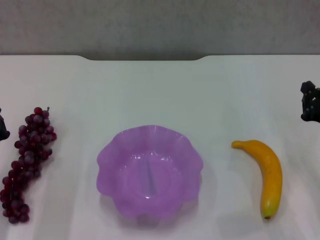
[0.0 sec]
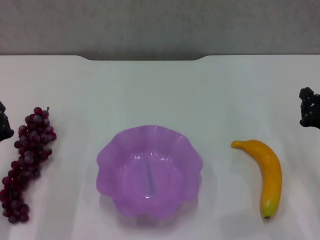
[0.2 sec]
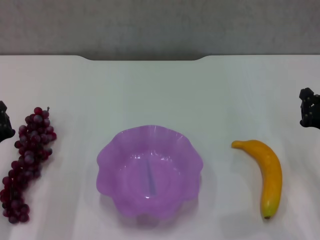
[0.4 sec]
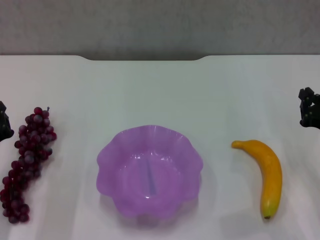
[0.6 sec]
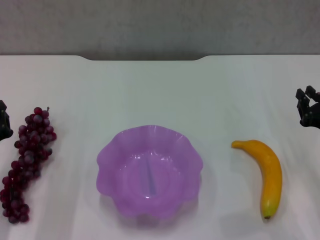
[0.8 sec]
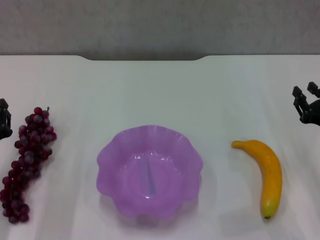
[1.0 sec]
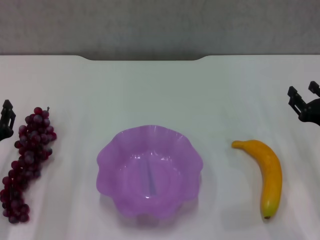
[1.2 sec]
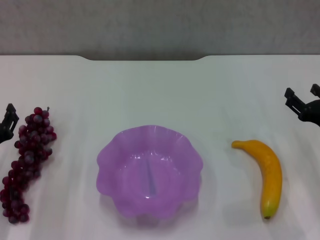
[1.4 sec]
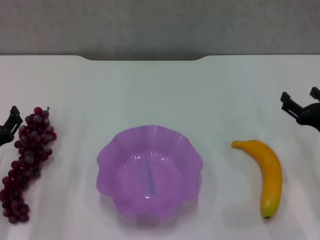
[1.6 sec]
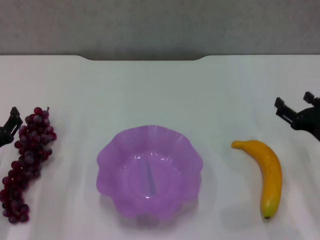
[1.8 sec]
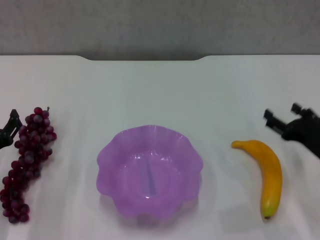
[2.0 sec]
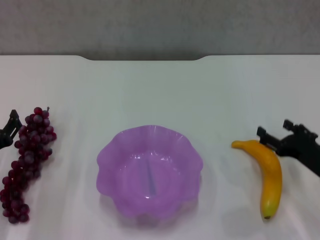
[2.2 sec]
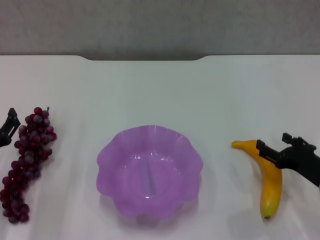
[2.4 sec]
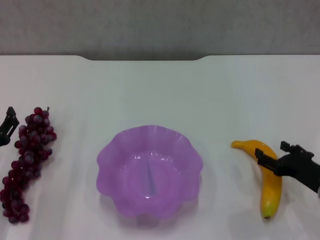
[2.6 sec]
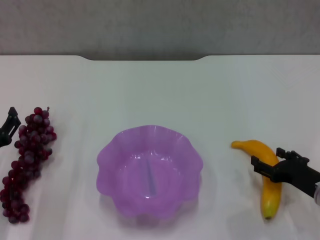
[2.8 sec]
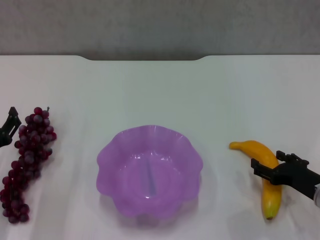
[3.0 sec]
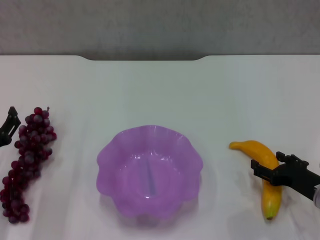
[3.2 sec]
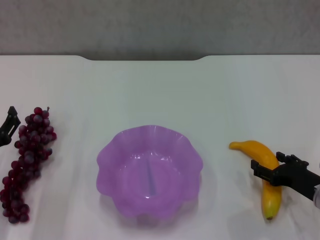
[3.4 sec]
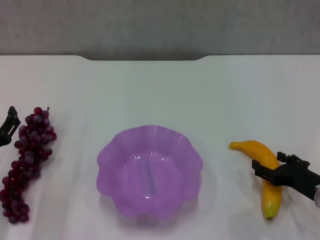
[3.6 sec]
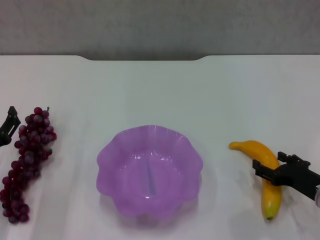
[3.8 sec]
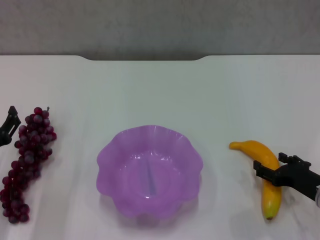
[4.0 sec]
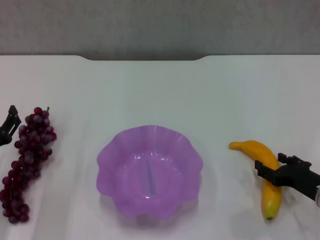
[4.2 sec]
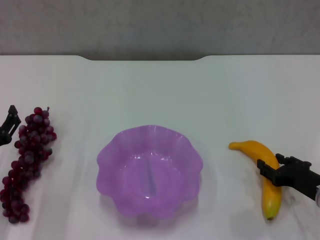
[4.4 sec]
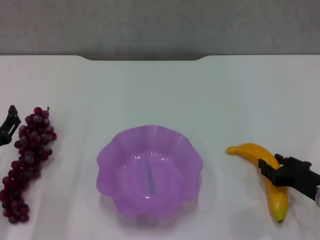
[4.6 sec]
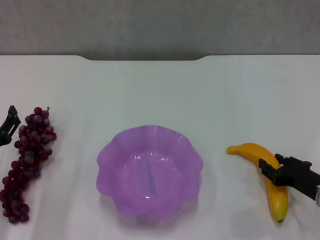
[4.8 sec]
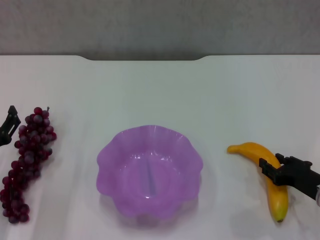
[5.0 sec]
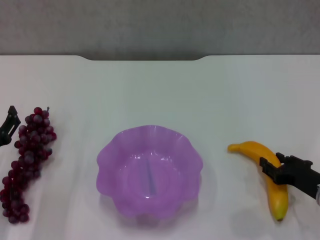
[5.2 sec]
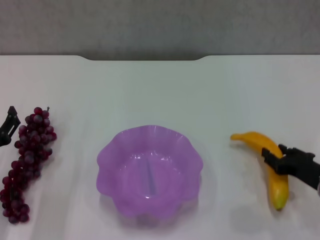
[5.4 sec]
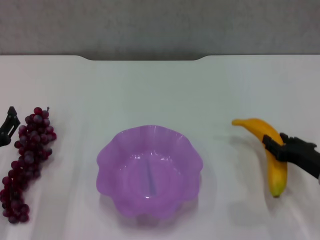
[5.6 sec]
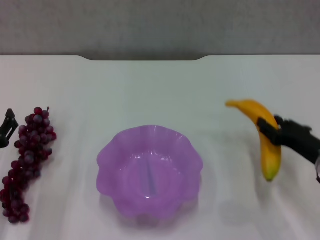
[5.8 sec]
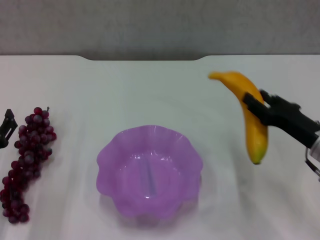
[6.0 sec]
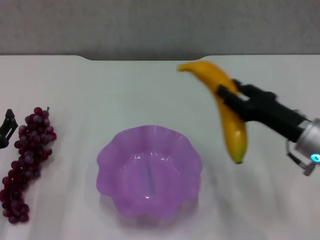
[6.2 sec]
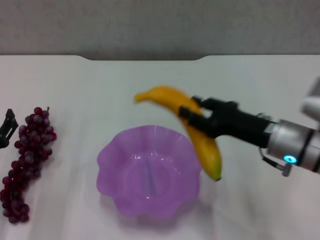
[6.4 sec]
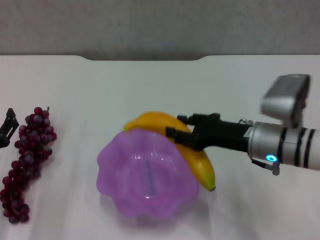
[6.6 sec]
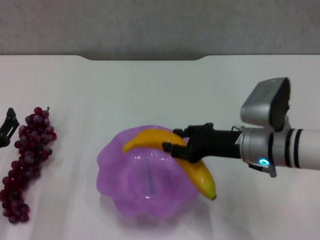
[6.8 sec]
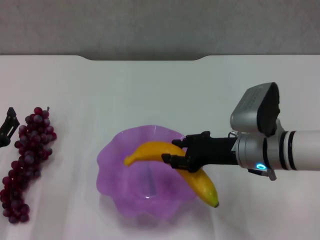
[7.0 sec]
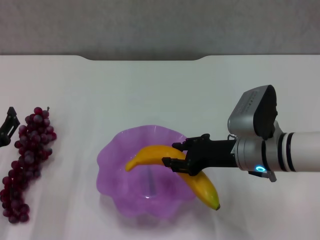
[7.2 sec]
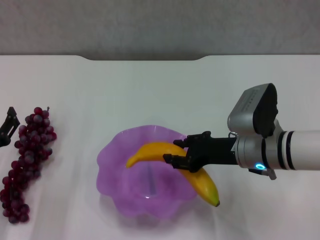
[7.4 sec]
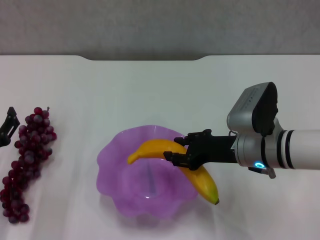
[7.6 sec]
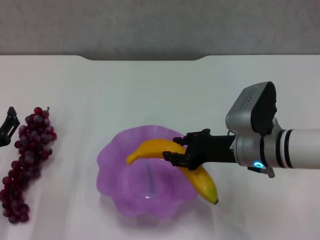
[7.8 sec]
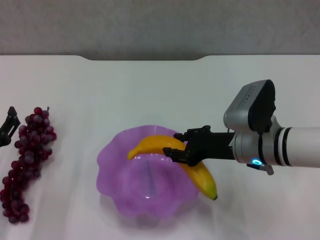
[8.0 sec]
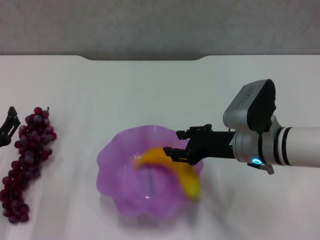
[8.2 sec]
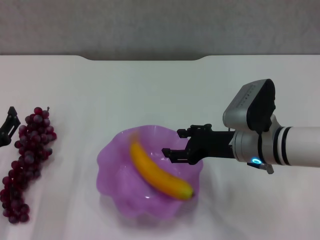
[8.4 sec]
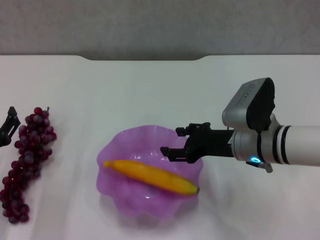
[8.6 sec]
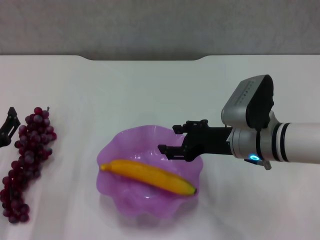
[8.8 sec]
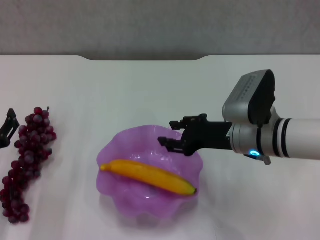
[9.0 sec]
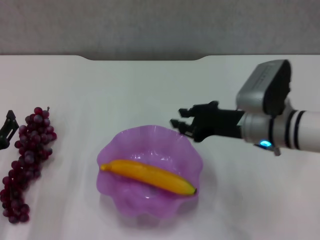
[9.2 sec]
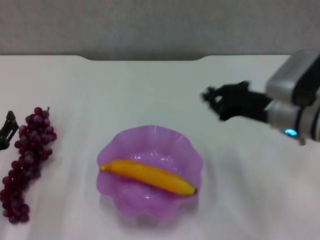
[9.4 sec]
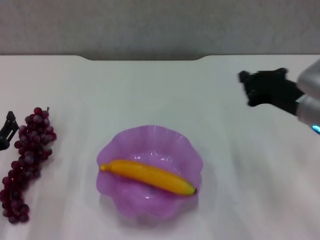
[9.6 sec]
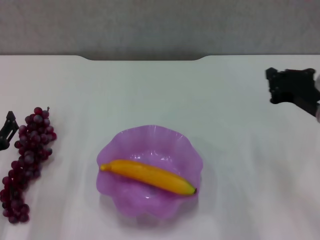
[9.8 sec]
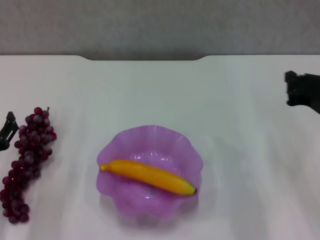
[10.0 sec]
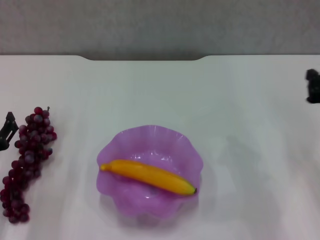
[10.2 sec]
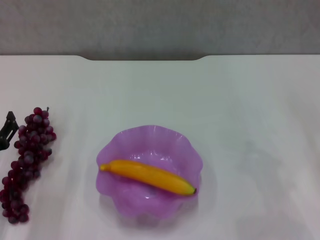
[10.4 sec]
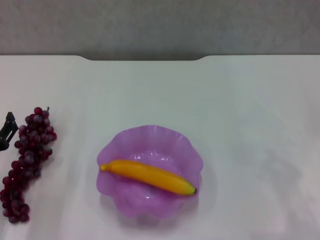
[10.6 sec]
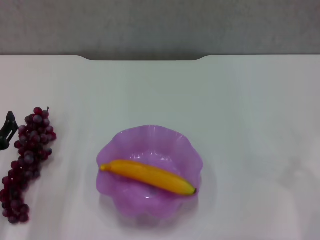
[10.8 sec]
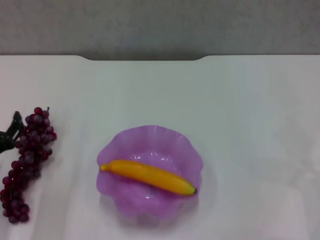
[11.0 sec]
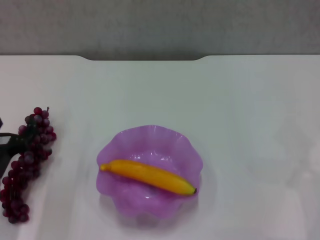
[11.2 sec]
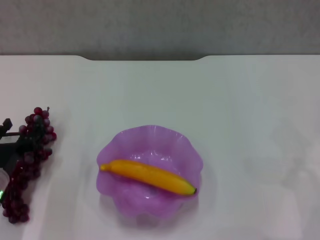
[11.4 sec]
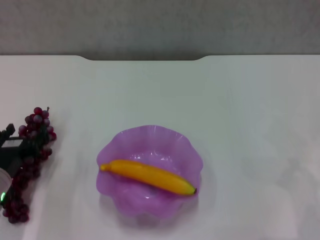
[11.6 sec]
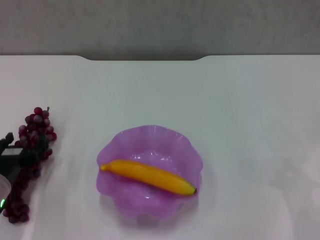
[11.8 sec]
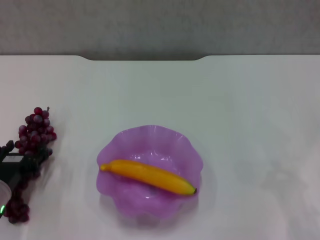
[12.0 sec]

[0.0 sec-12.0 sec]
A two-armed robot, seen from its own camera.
Step, 0.0 sec to 4.6 sec: Grasp the banana with right gripper.
Step, 4.8 sec to 8.4 sec: Place the banana in the purple plate with right gripper.
0.0 sec to 1.6 sec: The right gripper opens its fingers.
1.6 sec to 3.0 sec: The right gripper travels downward by some 5 cm.
3.0 sec to 4.4 sec: Both grippers stay put.
4.4 sec to 6.0 sec: The right gripper is displaced upward by some 5 cm, and closes its fingers.
6.0 sec to 7.6 sec: The right gripper is displaced to the left by about 10 cm.
7.6 sec to 9.0 sec: The grippers stay close to where they were, moving slightly.
9.0 sec to 10.4 sec: The right gripper shifts approximately 20 cm to the right, and closes its fingers.

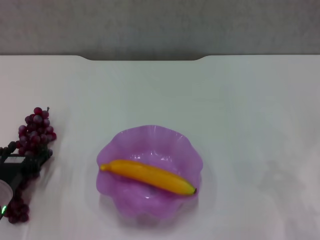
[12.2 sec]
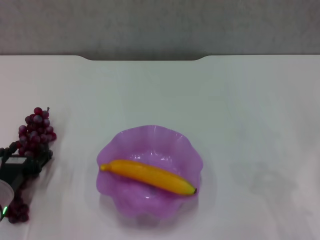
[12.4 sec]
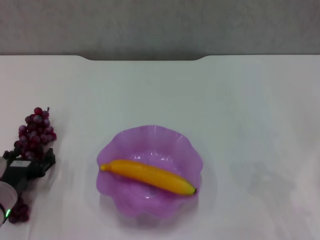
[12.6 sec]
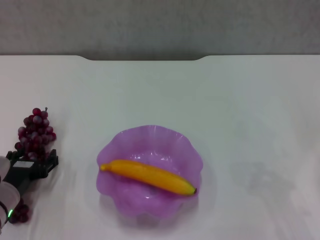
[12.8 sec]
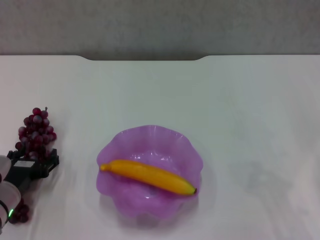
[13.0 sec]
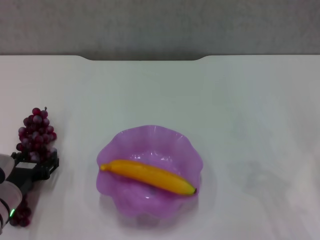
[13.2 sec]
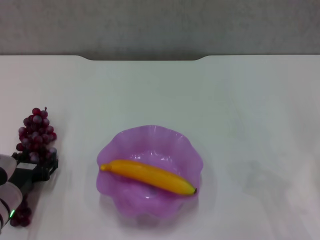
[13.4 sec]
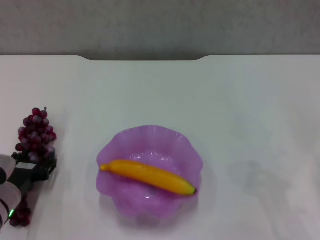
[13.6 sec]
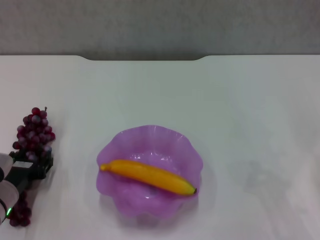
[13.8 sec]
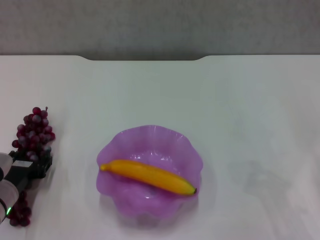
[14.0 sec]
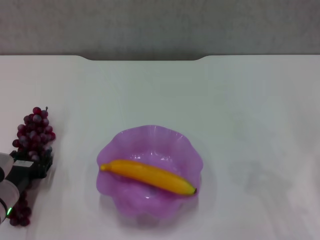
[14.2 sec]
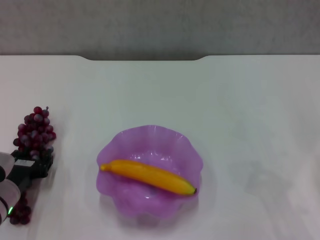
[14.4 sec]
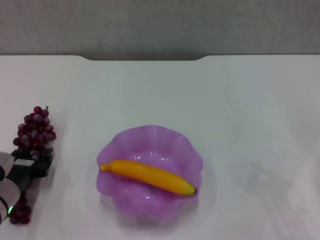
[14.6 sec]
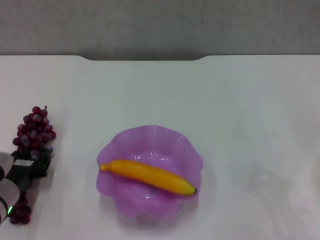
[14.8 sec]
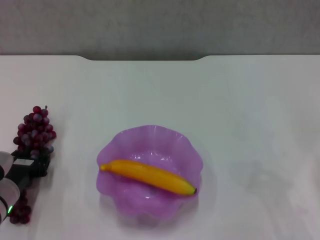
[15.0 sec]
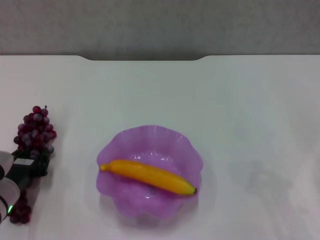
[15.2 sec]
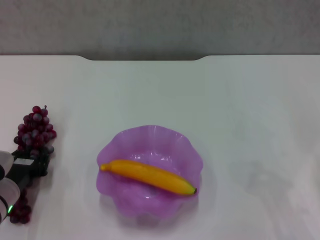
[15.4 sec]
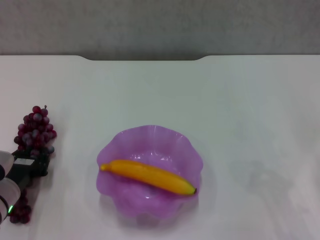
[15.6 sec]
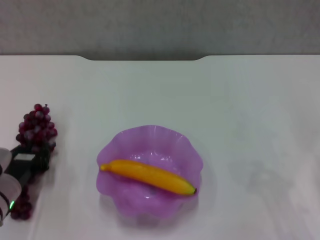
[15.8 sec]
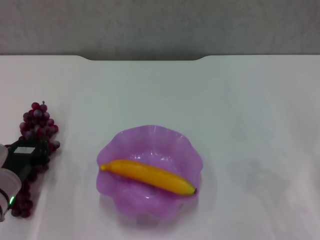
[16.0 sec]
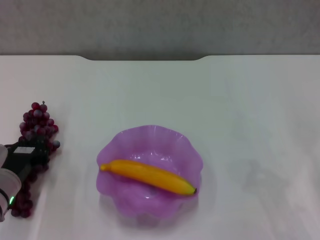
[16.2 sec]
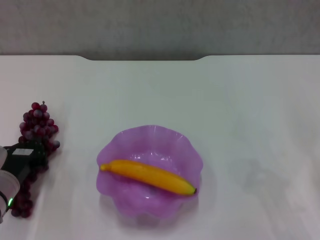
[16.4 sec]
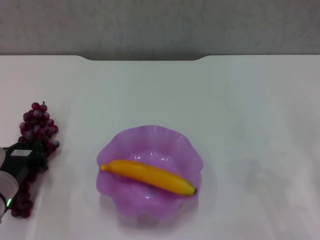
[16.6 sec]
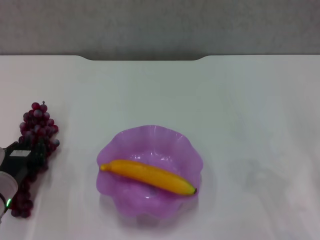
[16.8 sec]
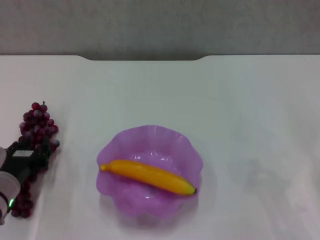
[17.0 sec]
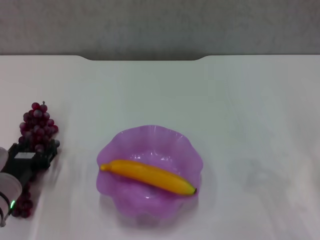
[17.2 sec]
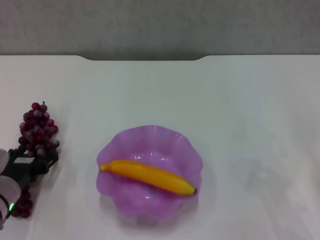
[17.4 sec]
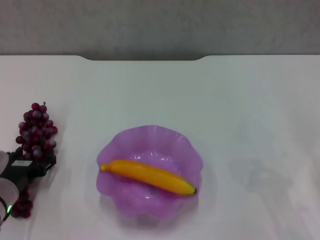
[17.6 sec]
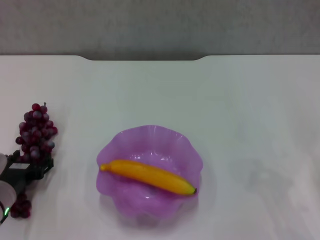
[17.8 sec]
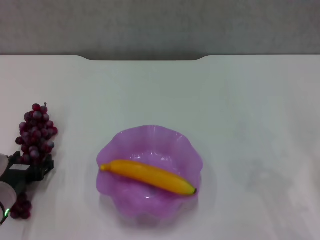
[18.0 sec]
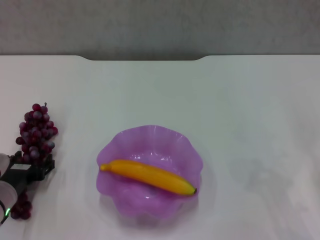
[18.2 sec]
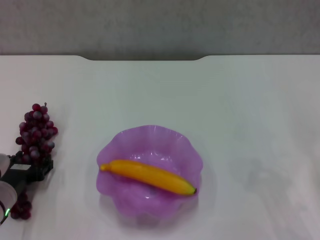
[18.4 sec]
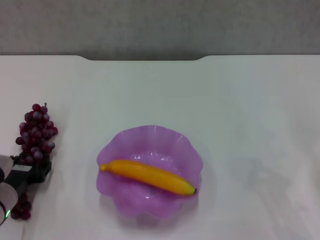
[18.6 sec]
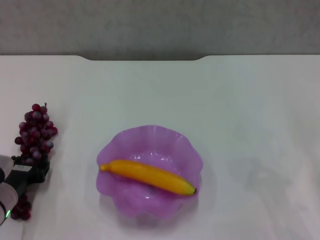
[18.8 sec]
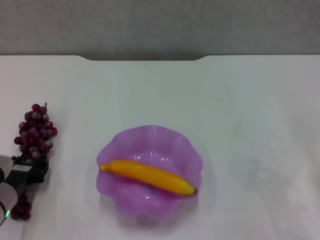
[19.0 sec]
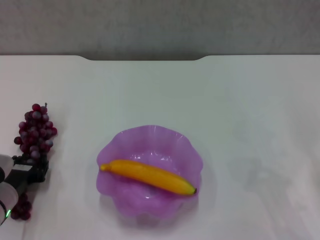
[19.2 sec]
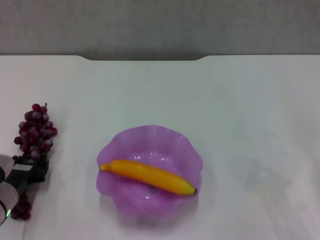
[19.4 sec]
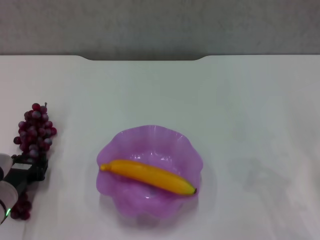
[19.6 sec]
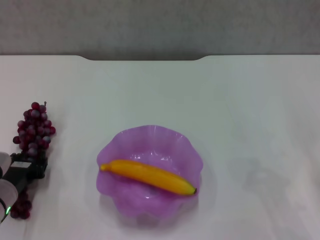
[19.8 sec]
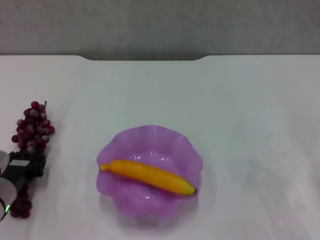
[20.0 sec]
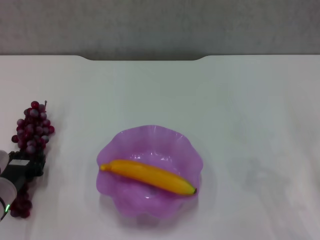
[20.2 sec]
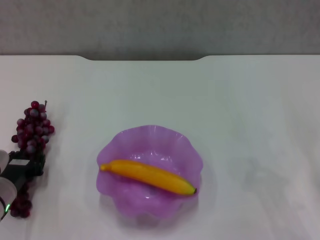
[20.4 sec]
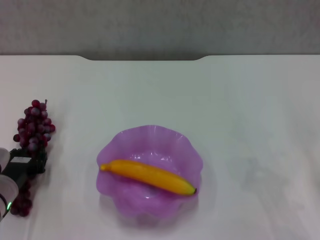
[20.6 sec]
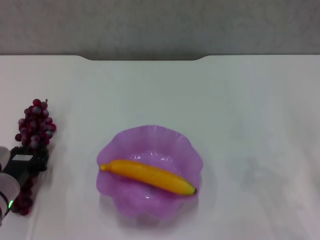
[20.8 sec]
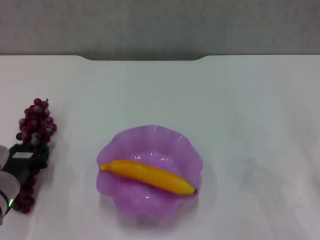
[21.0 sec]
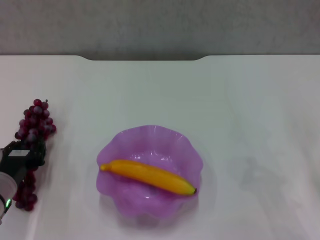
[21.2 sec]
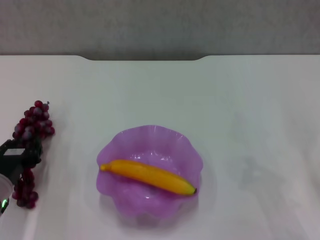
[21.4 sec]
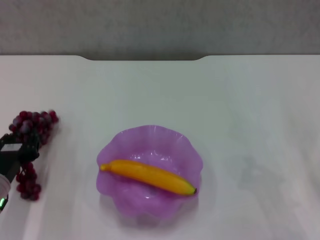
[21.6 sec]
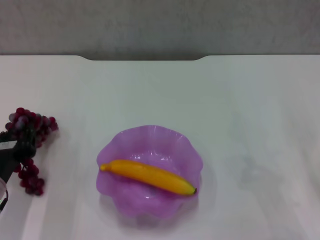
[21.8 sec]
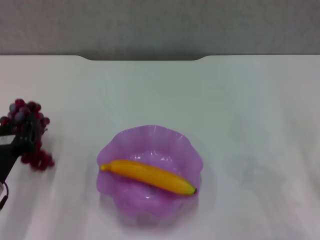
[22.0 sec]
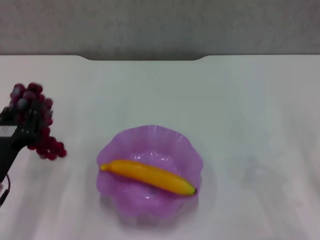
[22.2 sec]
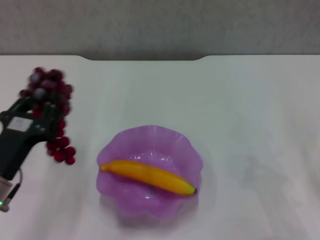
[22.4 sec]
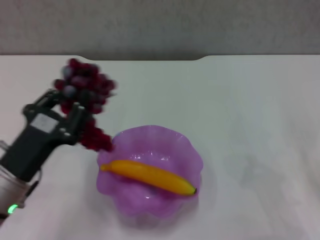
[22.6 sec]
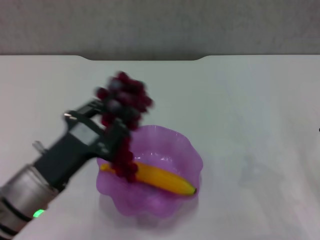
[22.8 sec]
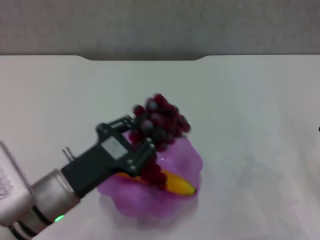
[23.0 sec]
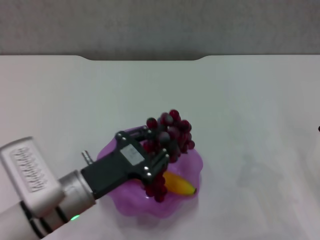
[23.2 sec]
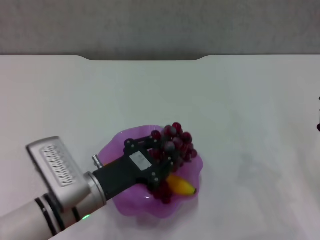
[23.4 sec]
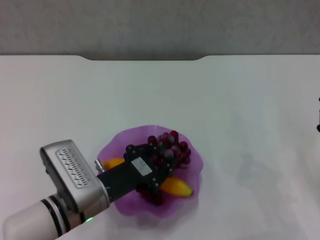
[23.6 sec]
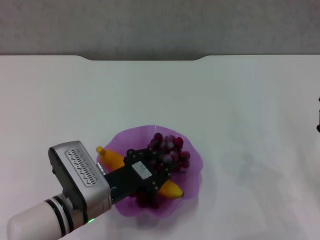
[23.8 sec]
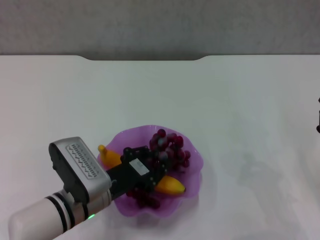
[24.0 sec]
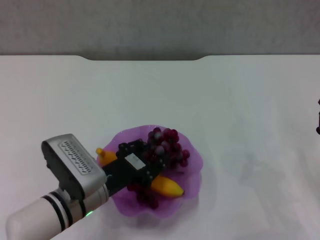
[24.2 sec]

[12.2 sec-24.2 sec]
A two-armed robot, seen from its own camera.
Step, 12.2 sec to 20.2 sec: Grasp the grape with left gripper.
12.2 sec to 13.8 sec: The grippers stay close to where they were, moving slightly.
13.8 sec to 15.2 sec: Both grippers stay about where they are.
15.2 sec to 16.6 sec: The left gripper closes up.
16.6 sec to 18.2 sec: The left gripper opens up.
18.2 sec to 19.8 sec: The left gripper closes its fingers.
19.8 sec to 21.2 sec: The grippers make only small movements.
21.2 sec to 22.6 sec: The left gripper goes about 5 cm upward.
22.6 sec to 24.2 sec: The left gripper moves to the right, roughly 10 cm.
